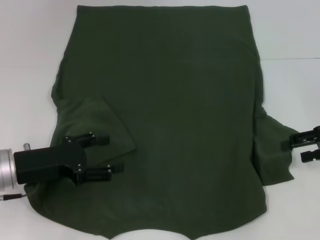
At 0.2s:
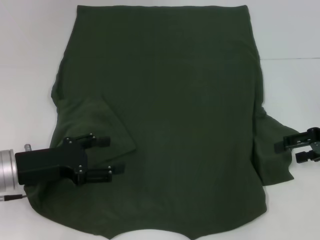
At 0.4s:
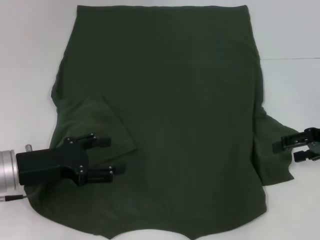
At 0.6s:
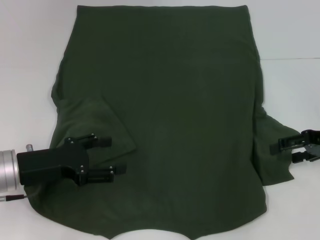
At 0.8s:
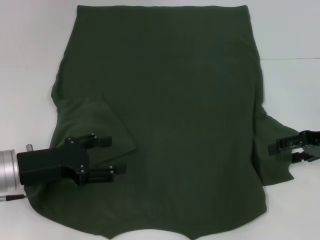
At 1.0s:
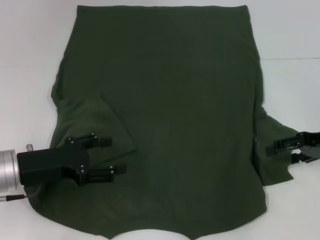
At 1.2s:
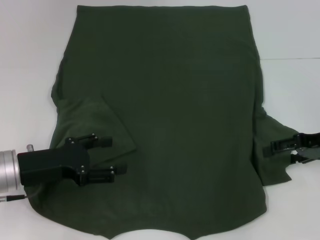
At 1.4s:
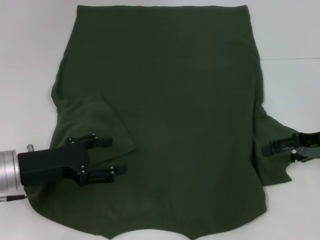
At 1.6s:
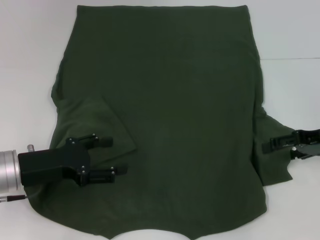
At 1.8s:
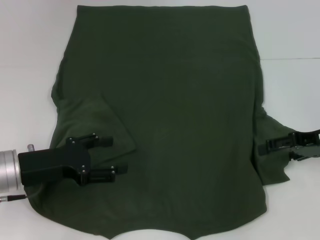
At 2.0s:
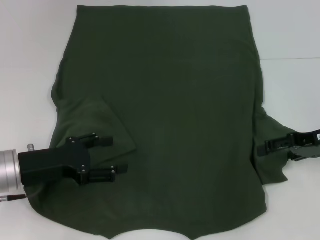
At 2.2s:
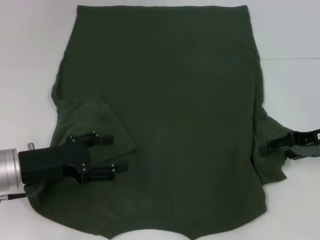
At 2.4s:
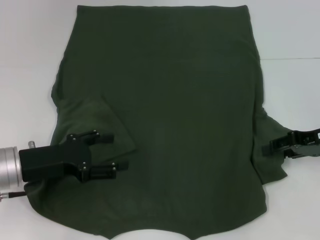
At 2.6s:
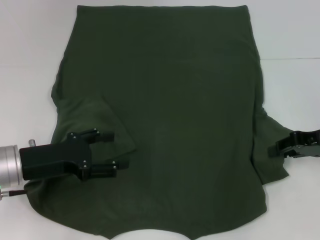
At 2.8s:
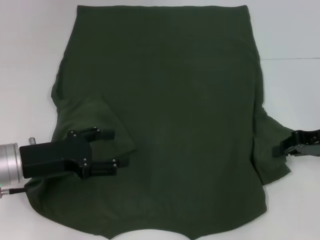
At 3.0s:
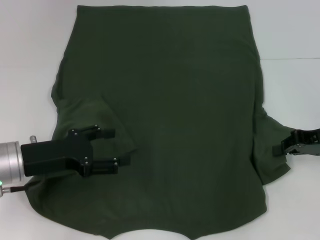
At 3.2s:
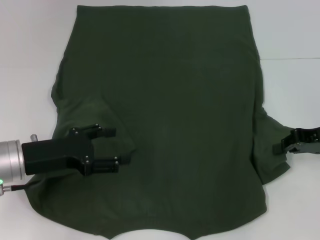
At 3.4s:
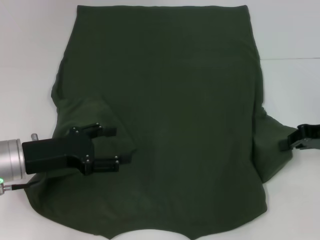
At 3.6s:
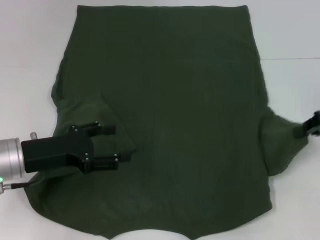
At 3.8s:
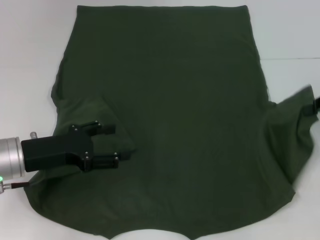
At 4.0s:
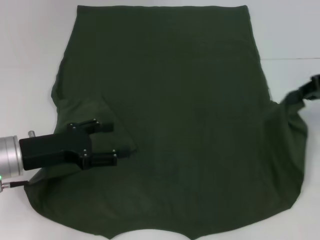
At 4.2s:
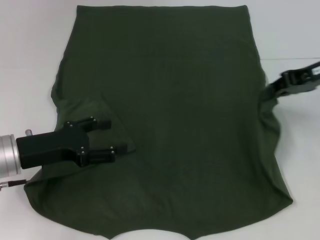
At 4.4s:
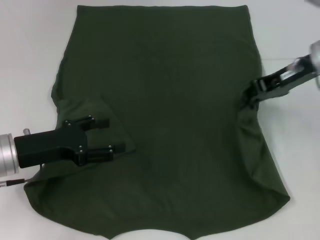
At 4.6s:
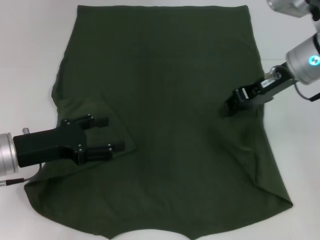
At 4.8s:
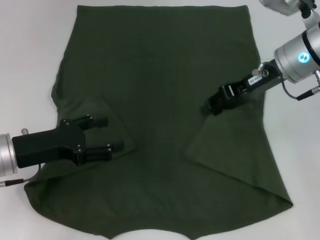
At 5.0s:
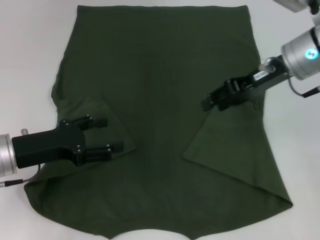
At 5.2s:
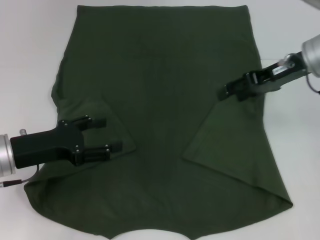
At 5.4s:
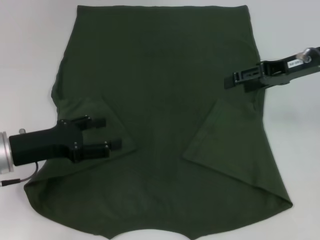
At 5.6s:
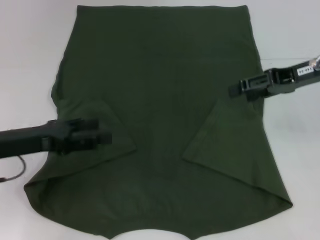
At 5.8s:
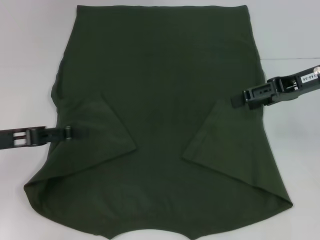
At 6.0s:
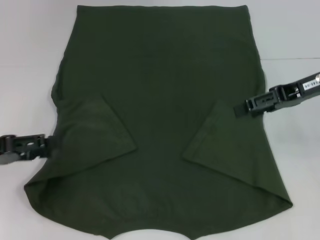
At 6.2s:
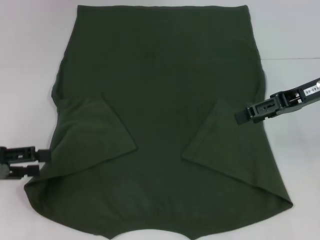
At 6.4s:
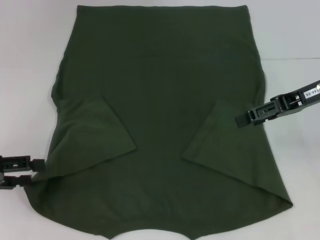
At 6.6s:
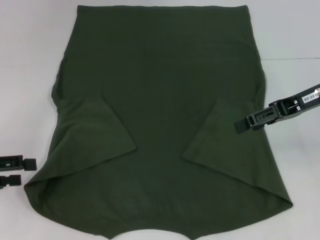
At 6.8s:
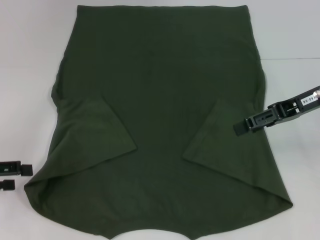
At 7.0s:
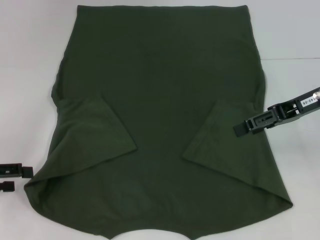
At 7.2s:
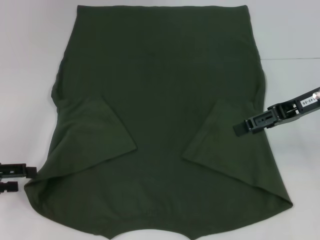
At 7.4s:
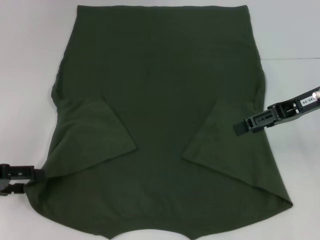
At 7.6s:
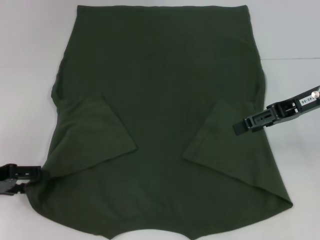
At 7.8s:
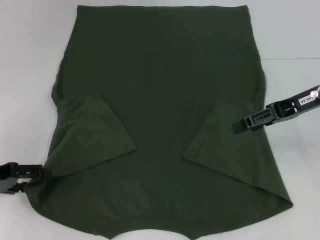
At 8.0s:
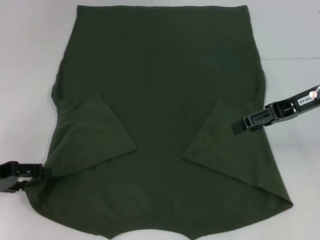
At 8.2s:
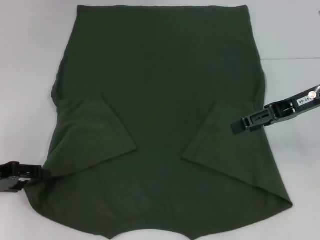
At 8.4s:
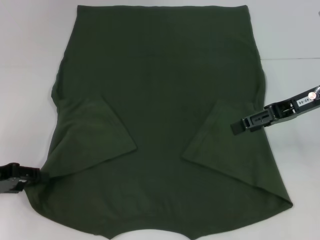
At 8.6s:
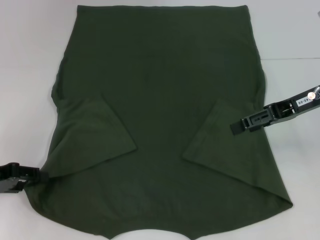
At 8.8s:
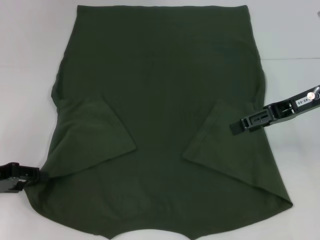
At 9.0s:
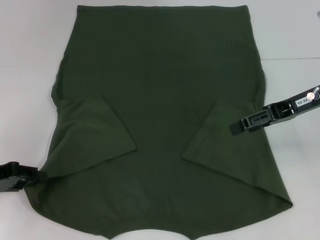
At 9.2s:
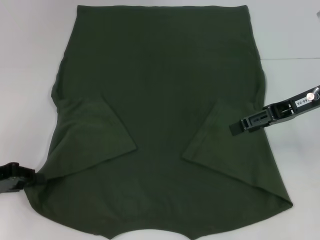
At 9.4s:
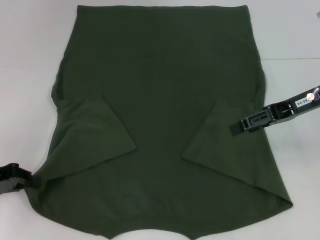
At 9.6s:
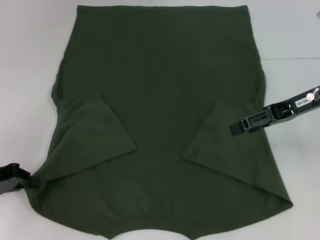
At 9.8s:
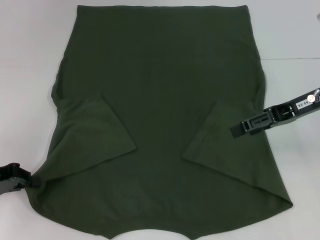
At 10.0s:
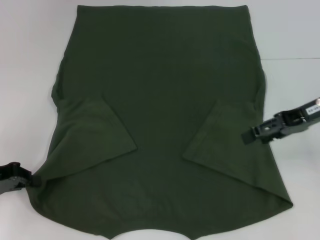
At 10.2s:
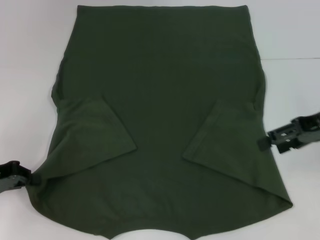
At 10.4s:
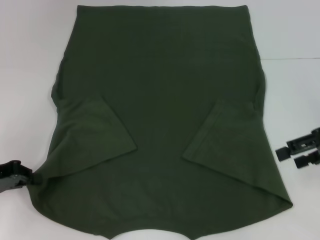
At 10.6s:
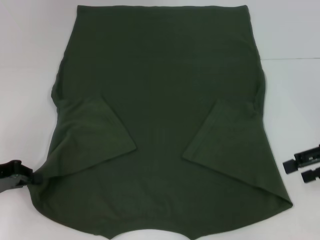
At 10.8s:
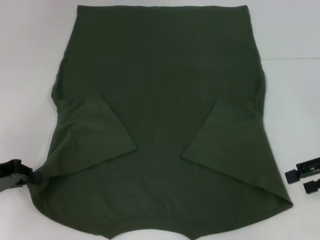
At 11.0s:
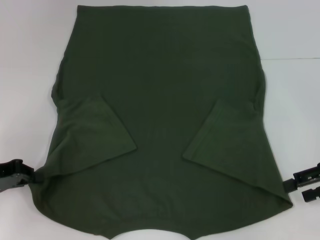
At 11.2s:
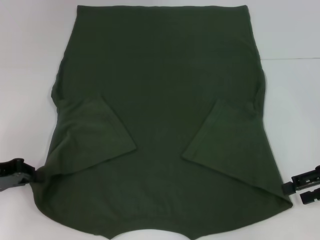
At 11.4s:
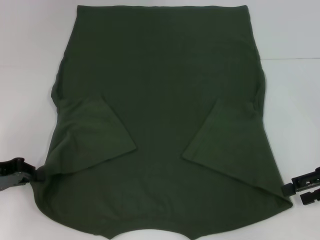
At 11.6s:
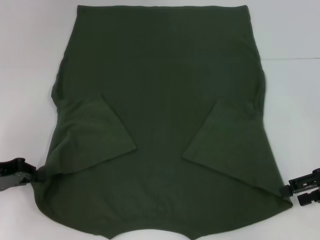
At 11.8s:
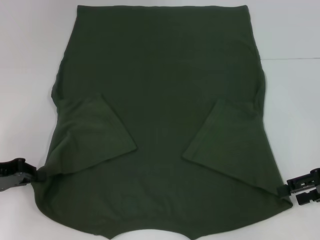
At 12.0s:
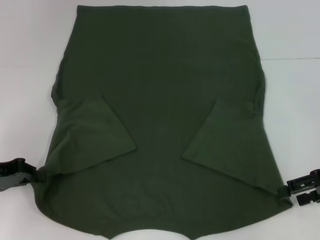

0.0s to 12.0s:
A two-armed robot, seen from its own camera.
Step, 0.0s to 5.6s: Fold the bottom right sleeve with your right hand.
Step, 5.8s to 10.4s: Grab the bottom left corner with your left hand.
0.0s to 1.6s: The grippers move only a little.
1.6s to 3.0s: The right gripper closes up.
3.0s to 4.4s: The right gripper travels upward, to the left and forward by approximately 15 cm.
4.4s to 6.0s: The left gripper heads to the left, covering some 10 cm, while the right gripper opens up.
9.0s to 10.4s: The right gripper heads to the right, covering about 5 cm.
10.4s to 12.0s: The right gripper travels downward by some 5 cm.

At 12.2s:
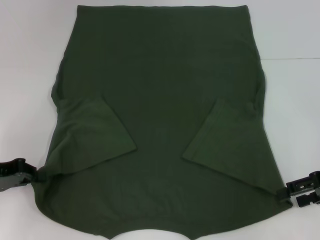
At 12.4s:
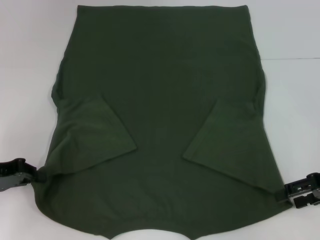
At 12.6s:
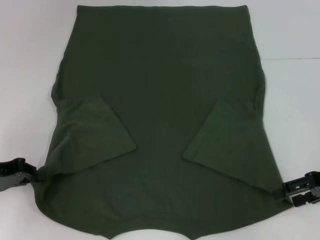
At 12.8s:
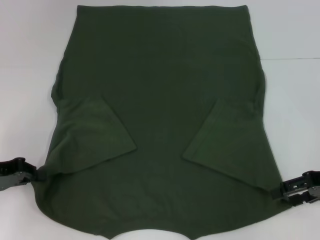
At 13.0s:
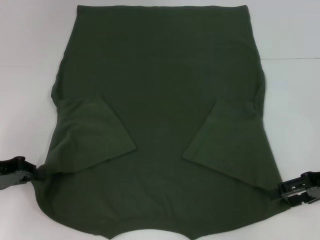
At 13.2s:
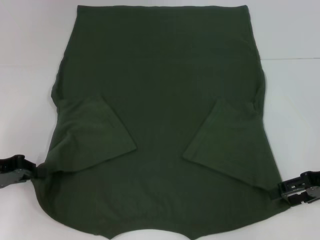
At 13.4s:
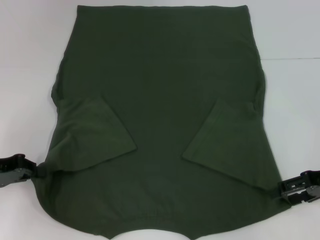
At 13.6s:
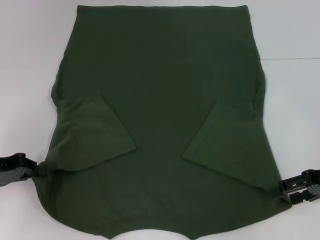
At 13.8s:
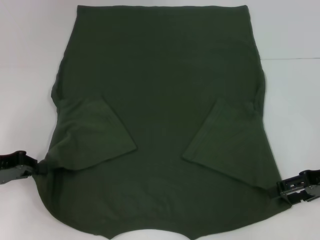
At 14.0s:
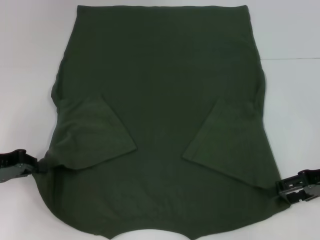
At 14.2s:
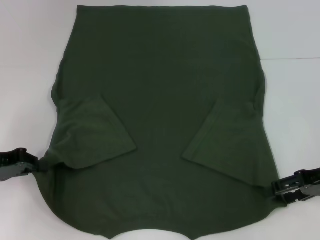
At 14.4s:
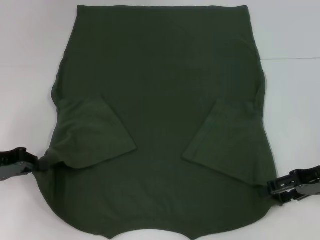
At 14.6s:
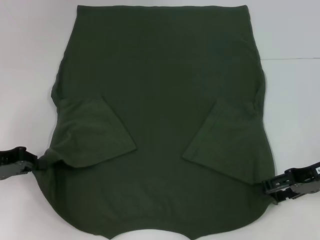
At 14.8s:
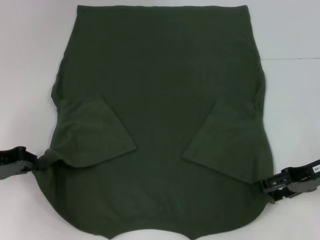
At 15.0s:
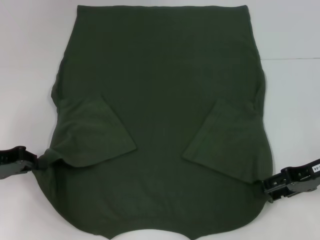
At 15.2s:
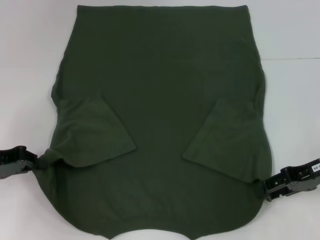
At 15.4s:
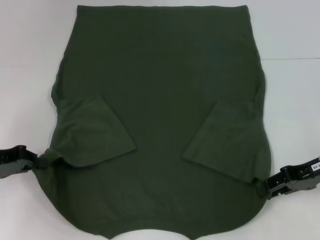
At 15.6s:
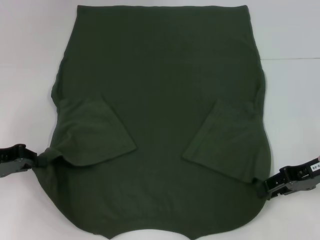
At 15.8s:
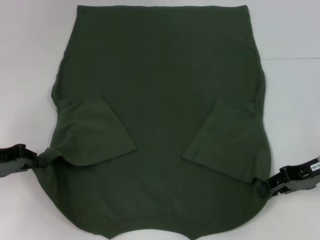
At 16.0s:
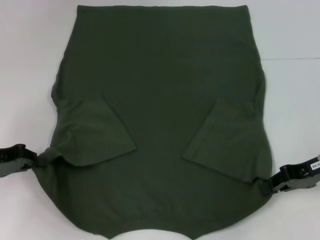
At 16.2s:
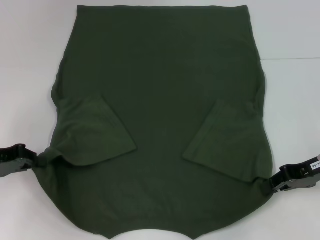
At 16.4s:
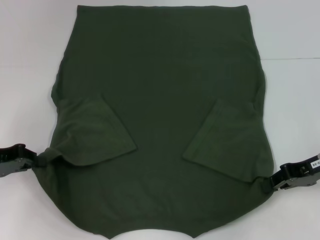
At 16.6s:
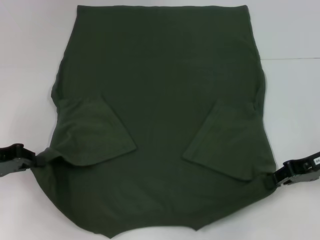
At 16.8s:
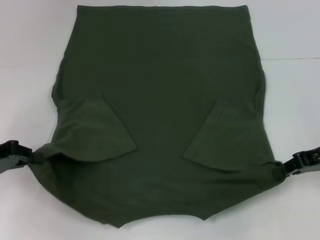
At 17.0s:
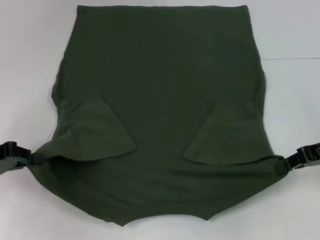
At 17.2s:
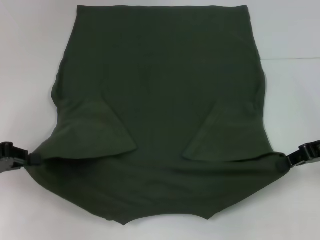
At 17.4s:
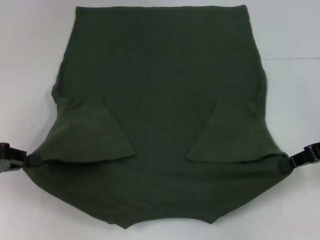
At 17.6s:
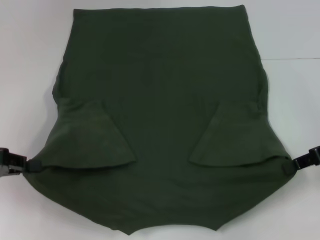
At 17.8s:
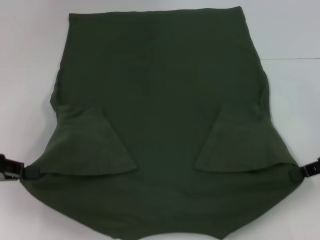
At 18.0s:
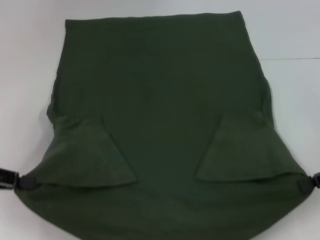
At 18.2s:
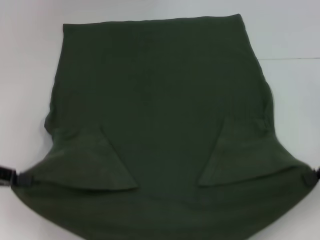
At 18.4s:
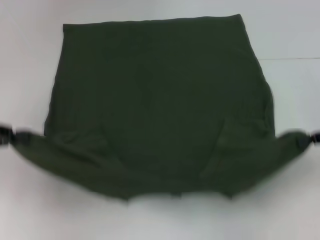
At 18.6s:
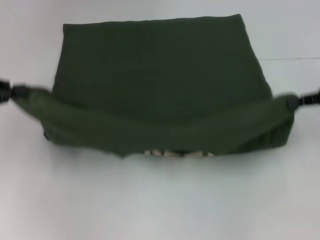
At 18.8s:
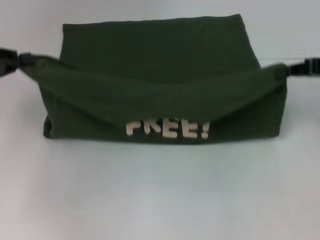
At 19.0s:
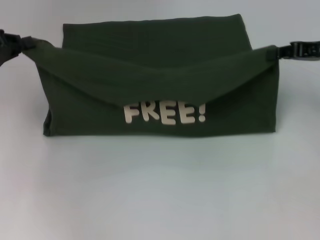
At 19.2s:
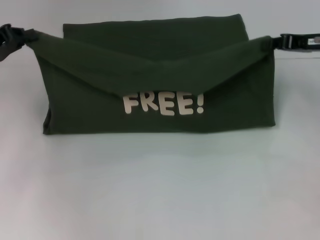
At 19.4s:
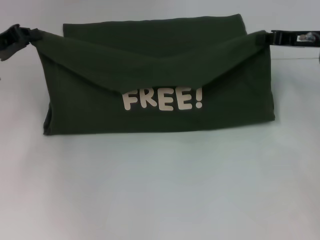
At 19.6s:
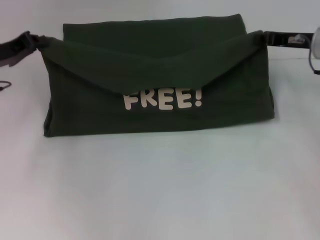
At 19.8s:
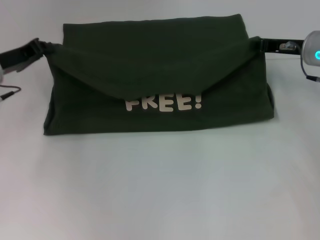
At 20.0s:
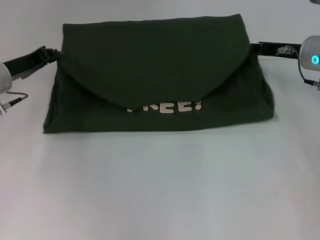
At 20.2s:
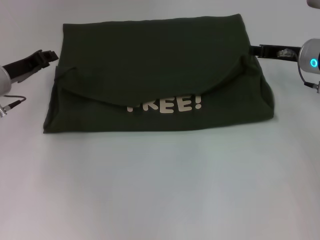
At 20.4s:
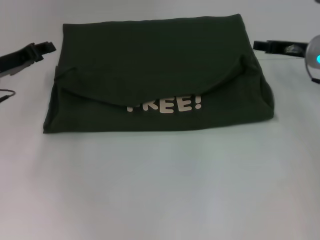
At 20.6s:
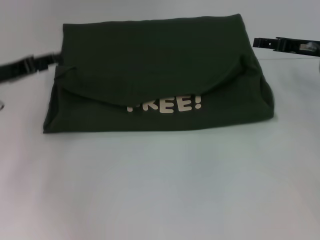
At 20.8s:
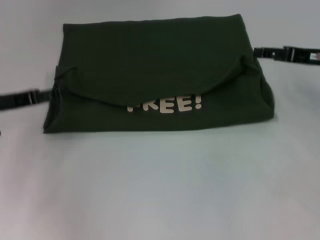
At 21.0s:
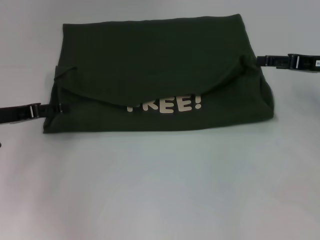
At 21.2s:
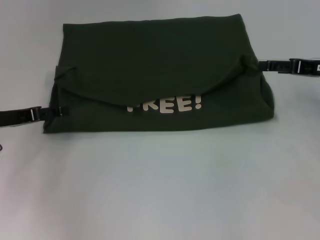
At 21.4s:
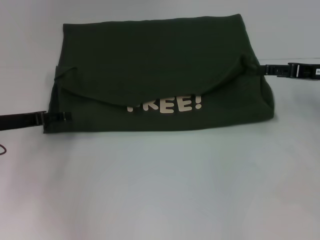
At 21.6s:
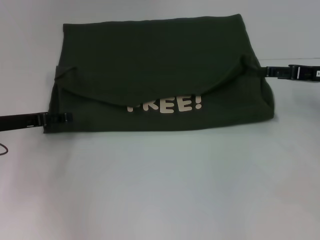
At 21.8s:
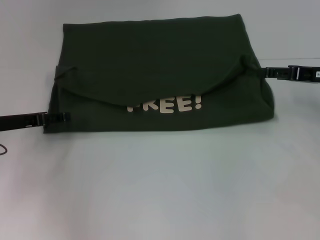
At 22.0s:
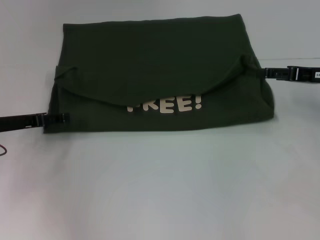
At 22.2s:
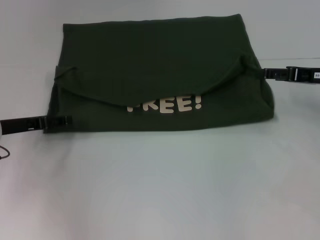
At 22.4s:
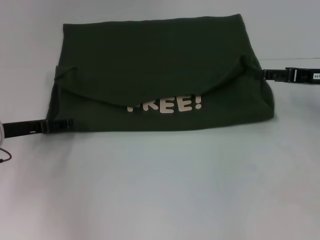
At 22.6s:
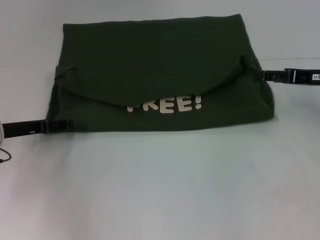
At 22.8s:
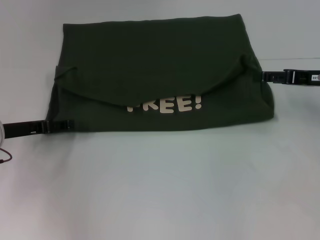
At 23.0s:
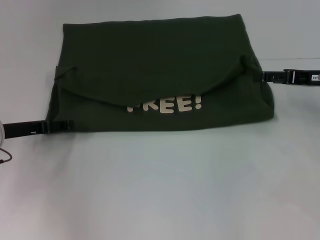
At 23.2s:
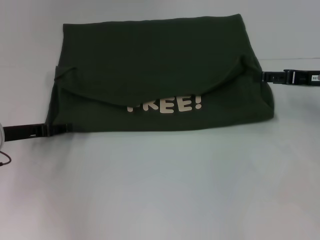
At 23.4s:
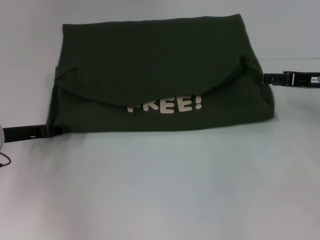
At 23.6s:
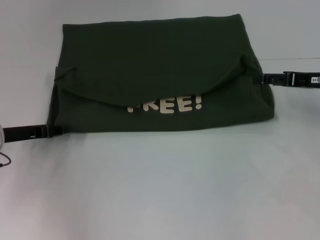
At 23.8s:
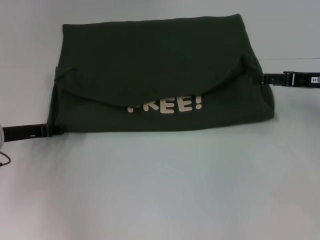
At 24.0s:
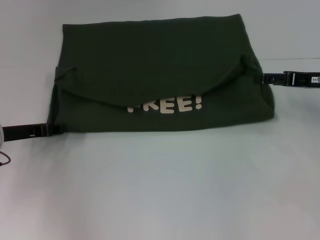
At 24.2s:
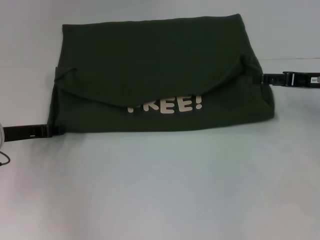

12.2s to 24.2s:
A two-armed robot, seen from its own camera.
Step, 12.2s to 15.2s: Grab the bottom right corner with your right hand.
Step, 15.4s to 20.4s: Fold the clothes with your left hand.
Step, 15.4s to 20.4s: Fold the clothes with your right hand.
12.2s to 13.8s: Both grippers stay put.
13.8s to 15.2s: The grippers move only a little.
15.2s to 16.6s: The right gripper closes its fingers.
16.6s to 18.2s: The right gripper travels to the right by approximately 5 cm, while the left gripper moves upward, roughly 5 cm.
18.2s to 19.8s: The right gripper heads forward and to the left, covering approximately 20 cm. The left gripper goes approximately 15 cm forward and to the right.
19.8s to 21.2s: The left gripper is displaced backward by approximately 5 cm, and opens up; the right gripper is displaced to the right and backward by about 10 cm, and opens its fingers.
21.2s to 22.6s: The grippers move only a little.
22.6s to 24.2s: The left gripper closes its fingers.
